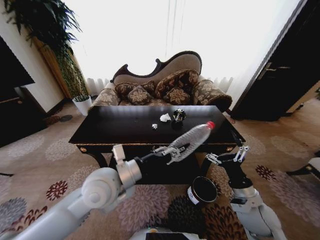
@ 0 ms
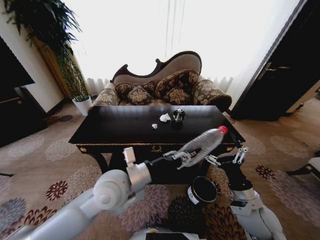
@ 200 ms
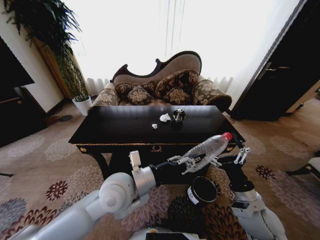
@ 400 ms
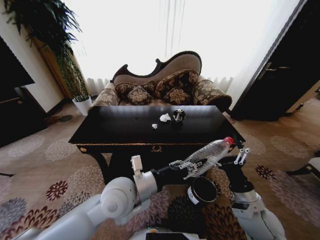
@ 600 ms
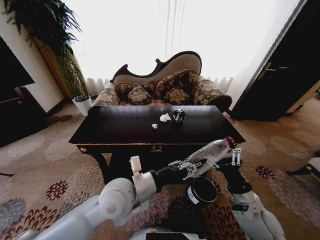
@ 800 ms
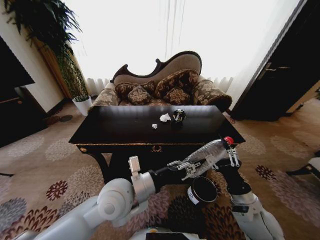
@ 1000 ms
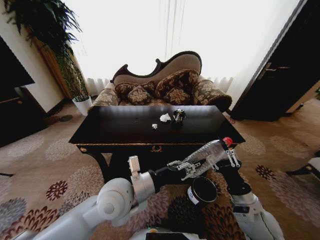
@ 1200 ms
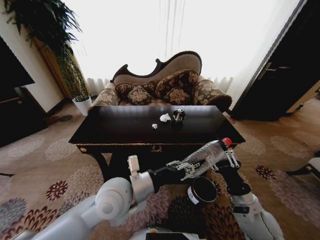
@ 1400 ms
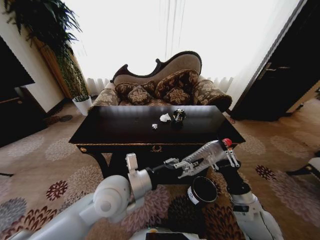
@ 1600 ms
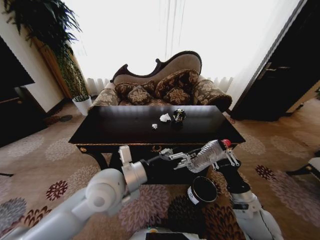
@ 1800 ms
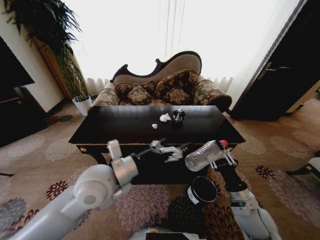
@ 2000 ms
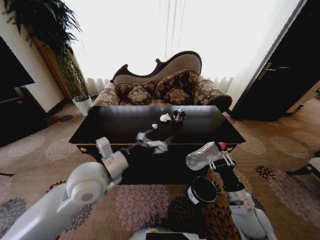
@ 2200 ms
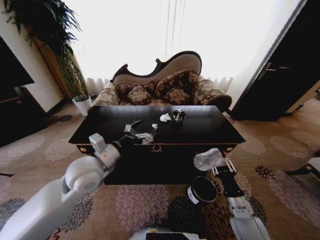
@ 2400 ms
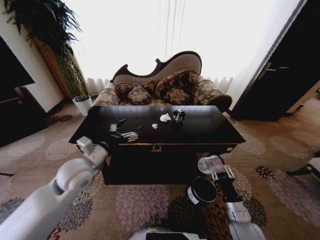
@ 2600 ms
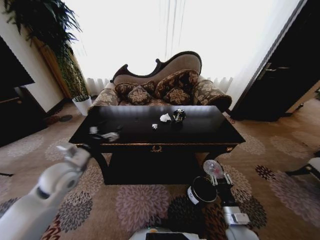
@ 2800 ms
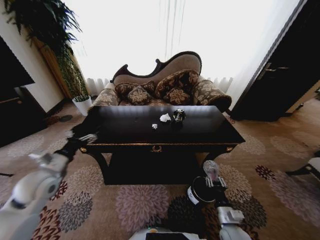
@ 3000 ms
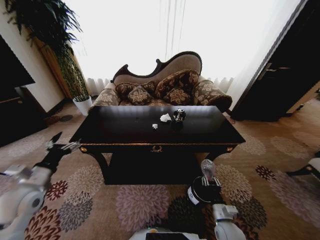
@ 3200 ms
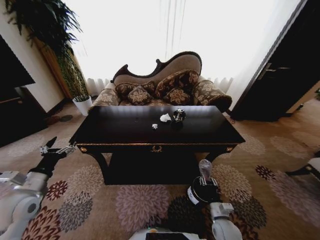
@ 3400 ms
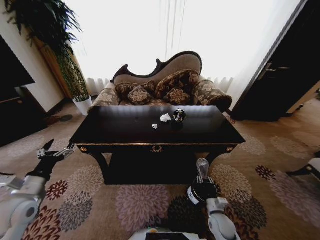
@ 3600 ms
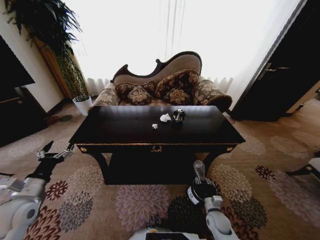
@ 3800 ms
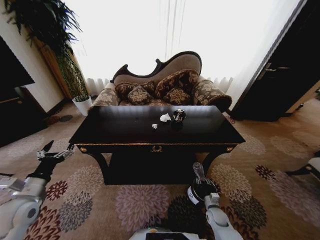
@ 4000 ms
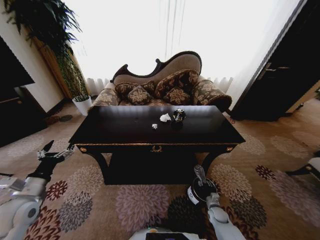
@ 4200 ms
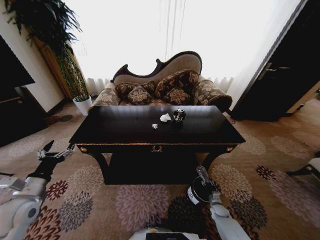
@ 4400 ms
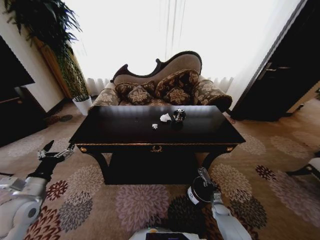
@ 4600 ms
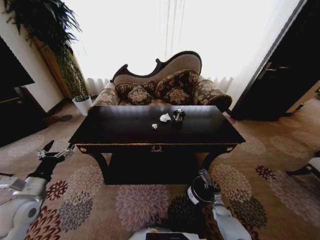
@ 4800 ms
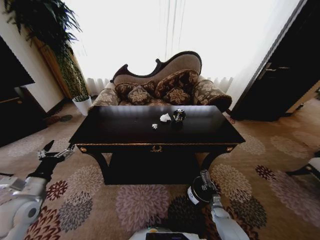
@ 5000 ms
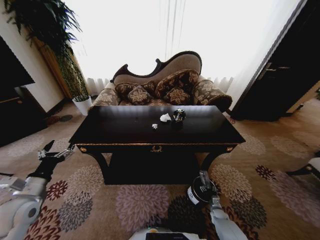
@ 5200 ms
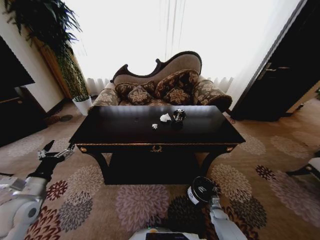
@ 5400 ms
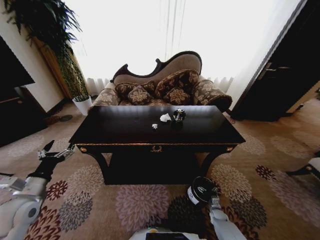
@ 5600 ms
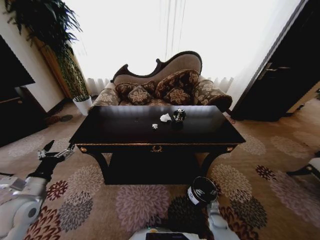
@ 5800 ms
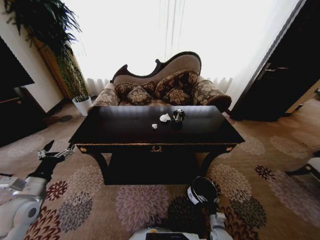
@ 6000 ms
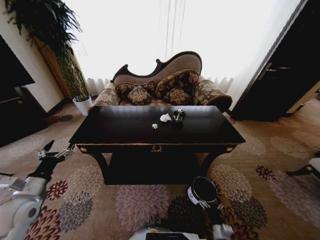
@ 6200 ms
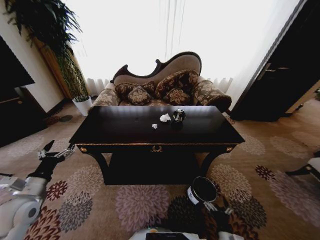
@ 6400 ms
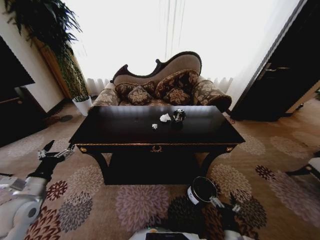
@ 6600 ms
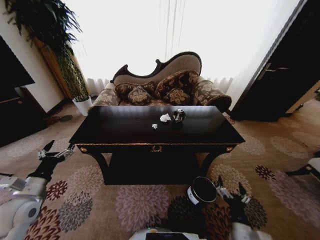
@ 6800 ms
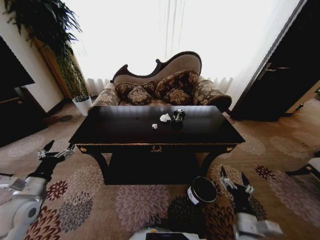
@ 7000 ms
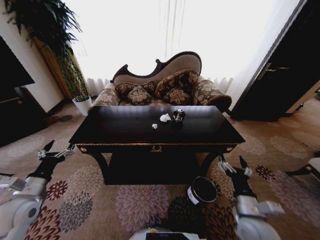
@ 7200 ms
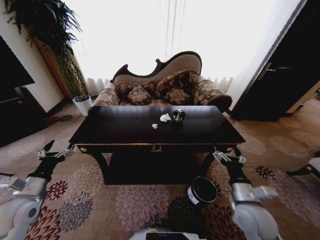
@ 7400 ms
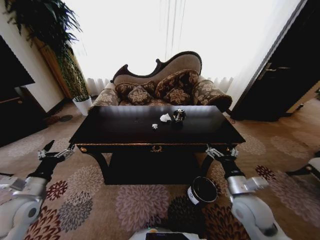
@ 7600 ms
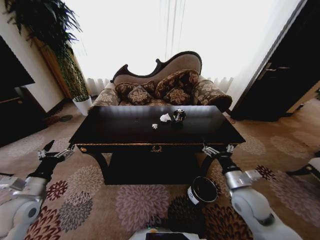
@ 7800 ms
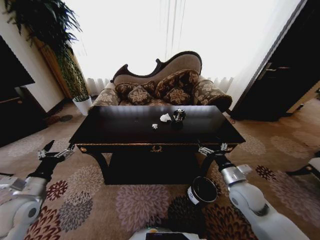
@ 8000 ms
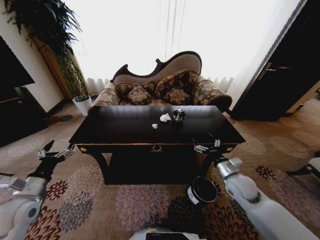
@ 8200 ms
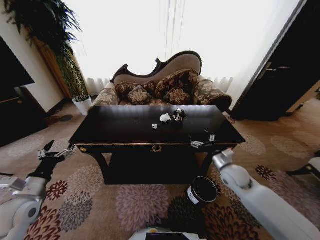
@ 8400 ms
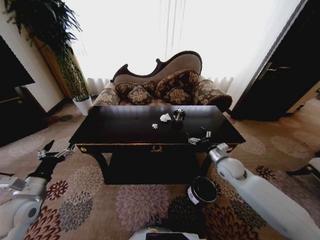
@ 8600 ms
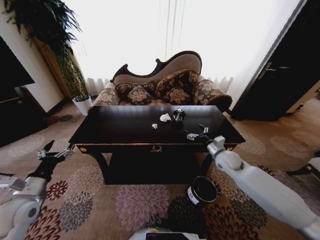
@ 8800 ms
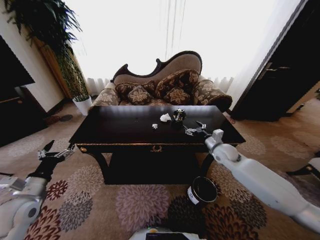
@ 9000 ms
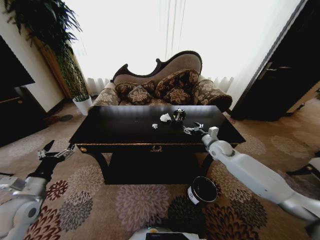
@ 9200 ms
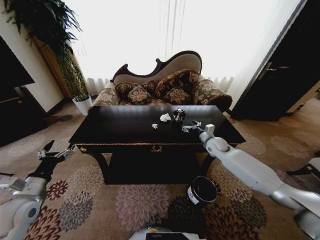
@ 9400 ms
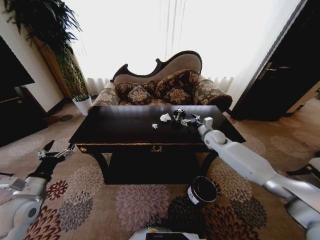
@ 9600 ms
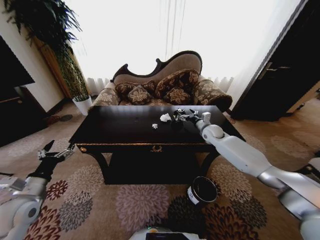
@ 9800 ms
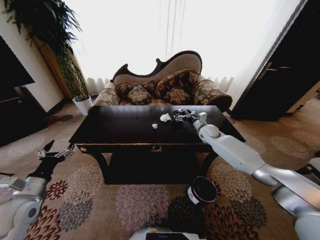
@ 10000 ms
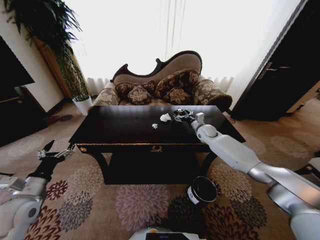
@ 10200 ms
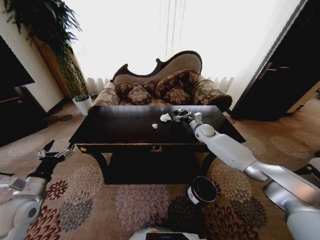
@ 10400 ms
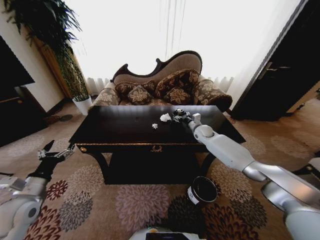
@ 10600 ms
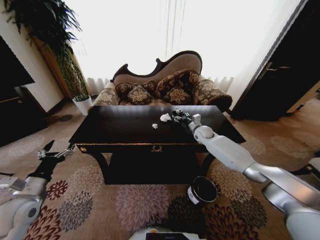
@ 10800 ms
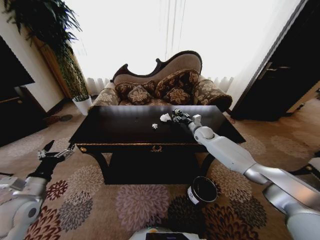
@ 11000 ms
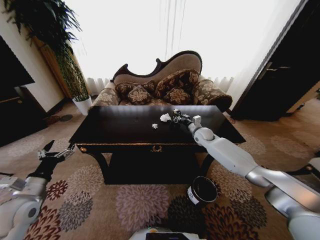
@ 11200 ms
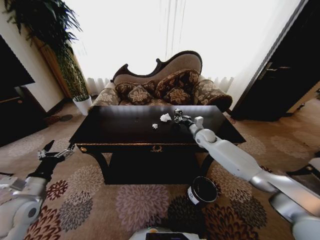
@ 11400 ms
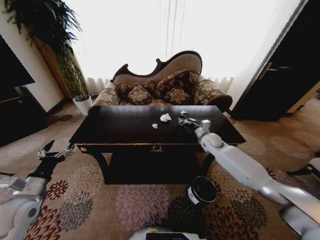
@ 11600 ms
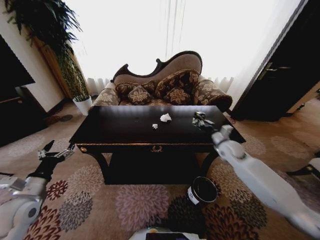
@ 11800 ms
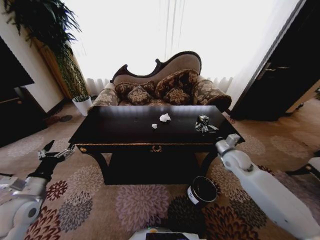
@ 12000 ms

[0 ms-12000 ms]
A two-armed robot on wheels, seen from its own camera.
Task of the whole recording: Move to the front of the table and place the trash on the table into the trash bin.
0 ms to 1600 ms: The right gripper closes up.
1600 ms to 3000 ms: The right gripper is displaced downward by about 15 cm. The left gripper moves to the left, about 25 cm, and opens up.
3000 ms to 4400 ms: The left gripper travels backward by approximately 5 cm, while the right gripper shifts approximately 25 cm downward, forward and to the right.
4400 ms to 6000 ms: The right gripper heads backward, covering some 10 cm, and opens.
6000 ms to 7600 ms: The right gripper heads upward, covering some 35 cm.
7600 ms to 9000 ms: The right gripper goes about 25 cm forward.
9000 ms to 10400 ms: The right gripper is displaced forward by about 15 cm.
10400 ms to 12000 ms: The right gripper heads backward, covering some 20 cm, and closes up.

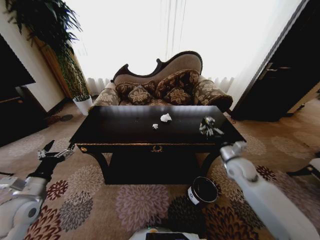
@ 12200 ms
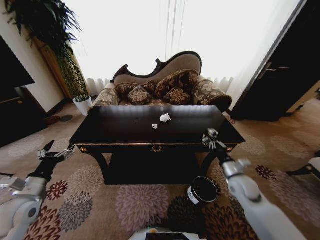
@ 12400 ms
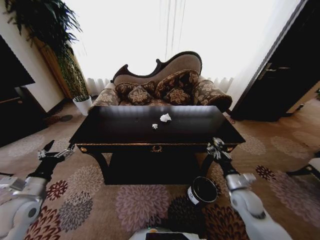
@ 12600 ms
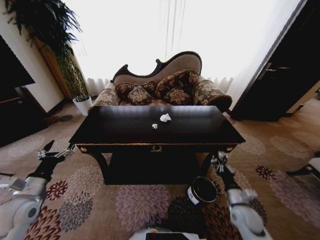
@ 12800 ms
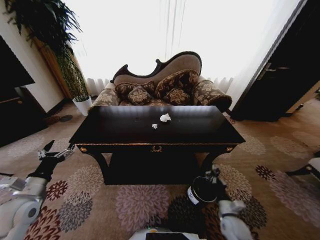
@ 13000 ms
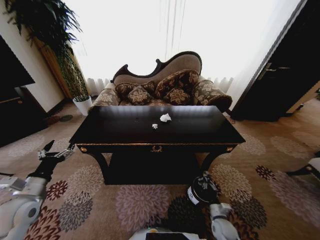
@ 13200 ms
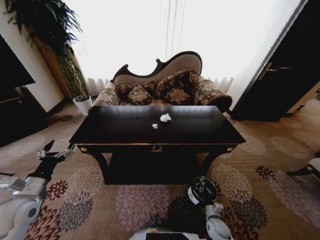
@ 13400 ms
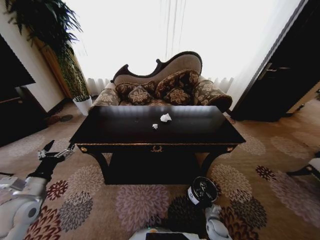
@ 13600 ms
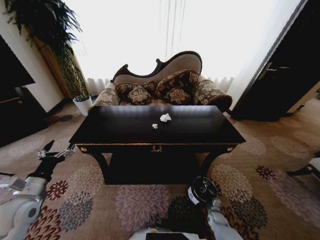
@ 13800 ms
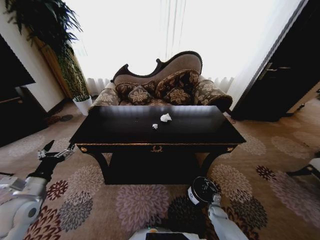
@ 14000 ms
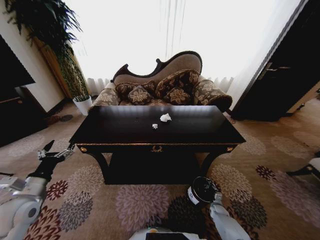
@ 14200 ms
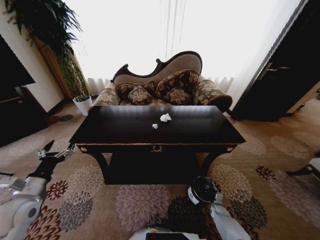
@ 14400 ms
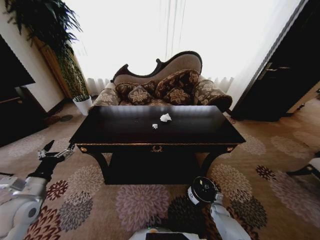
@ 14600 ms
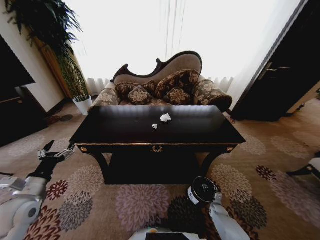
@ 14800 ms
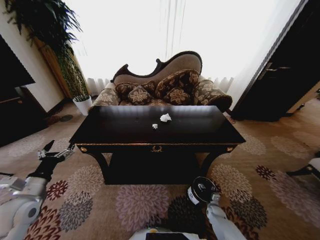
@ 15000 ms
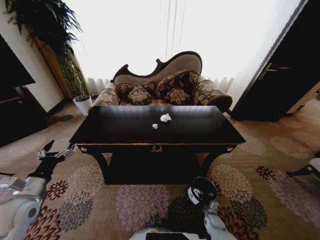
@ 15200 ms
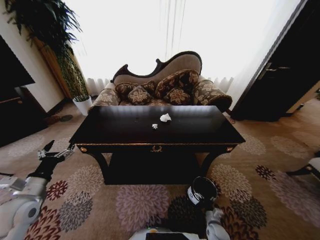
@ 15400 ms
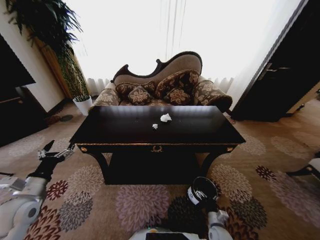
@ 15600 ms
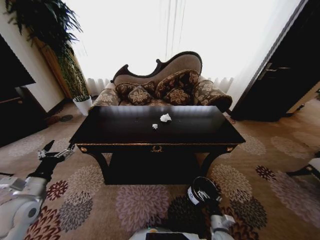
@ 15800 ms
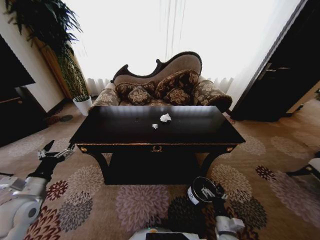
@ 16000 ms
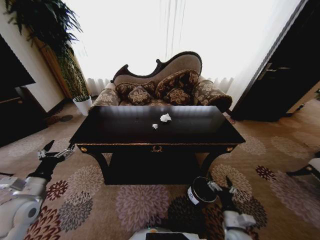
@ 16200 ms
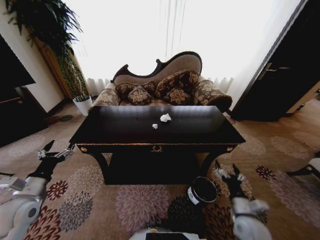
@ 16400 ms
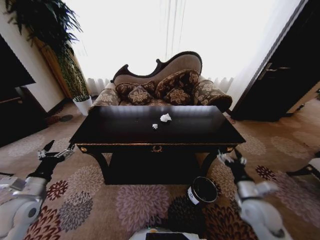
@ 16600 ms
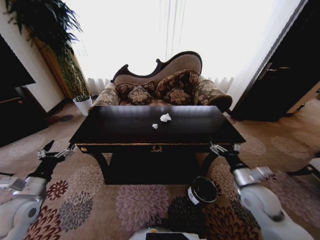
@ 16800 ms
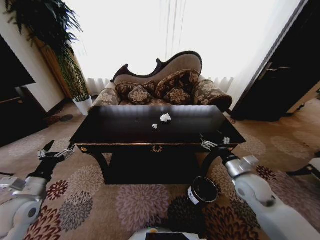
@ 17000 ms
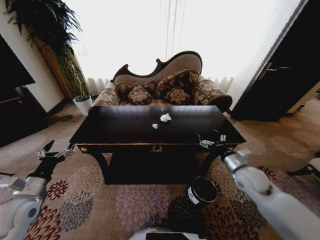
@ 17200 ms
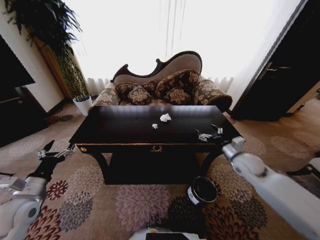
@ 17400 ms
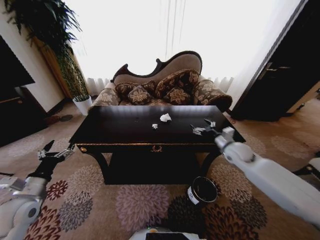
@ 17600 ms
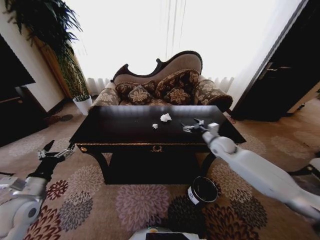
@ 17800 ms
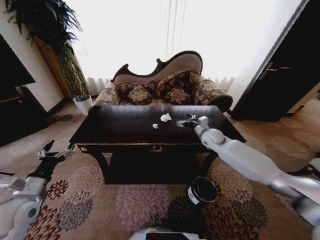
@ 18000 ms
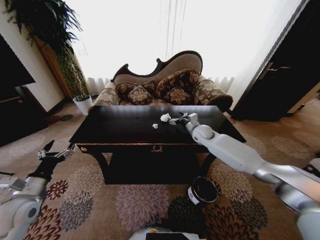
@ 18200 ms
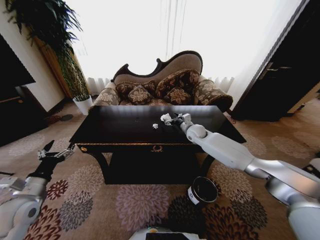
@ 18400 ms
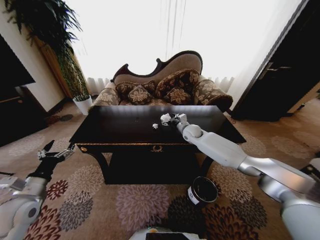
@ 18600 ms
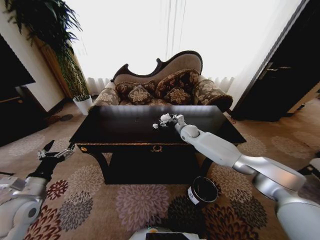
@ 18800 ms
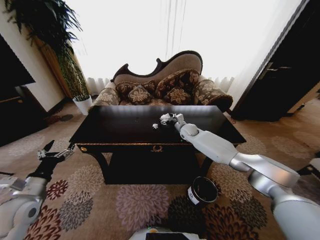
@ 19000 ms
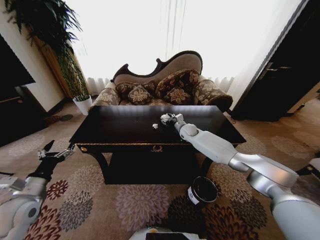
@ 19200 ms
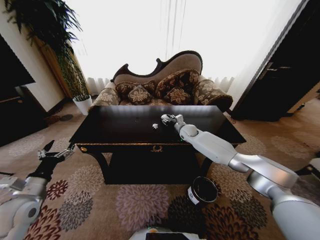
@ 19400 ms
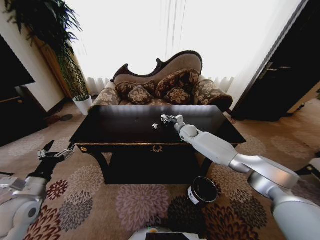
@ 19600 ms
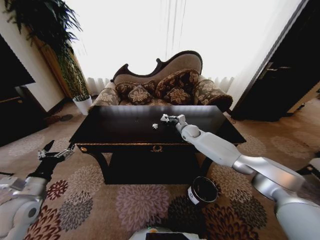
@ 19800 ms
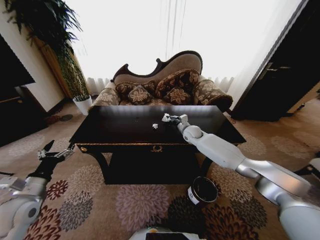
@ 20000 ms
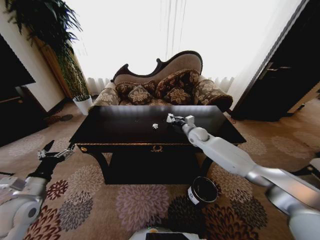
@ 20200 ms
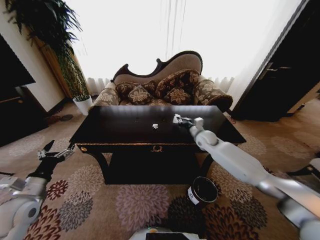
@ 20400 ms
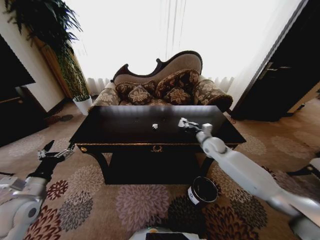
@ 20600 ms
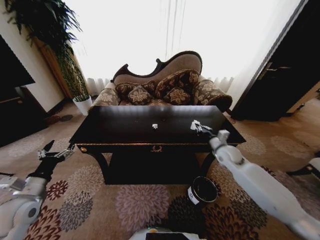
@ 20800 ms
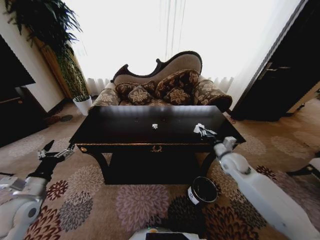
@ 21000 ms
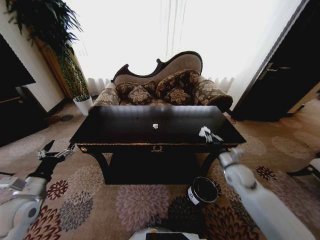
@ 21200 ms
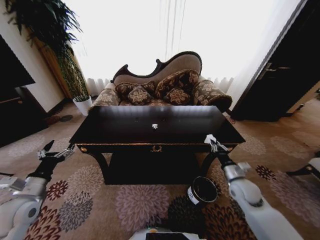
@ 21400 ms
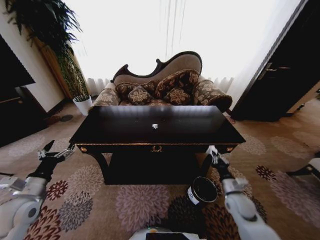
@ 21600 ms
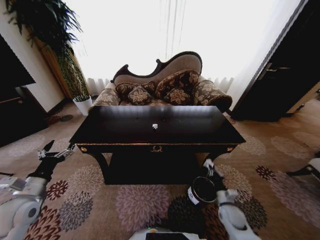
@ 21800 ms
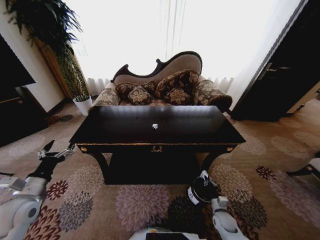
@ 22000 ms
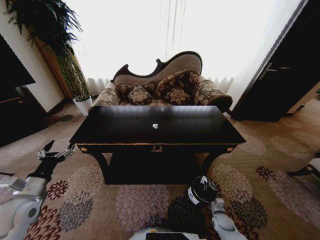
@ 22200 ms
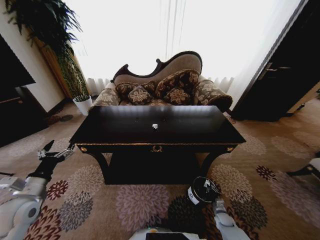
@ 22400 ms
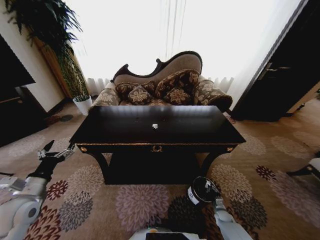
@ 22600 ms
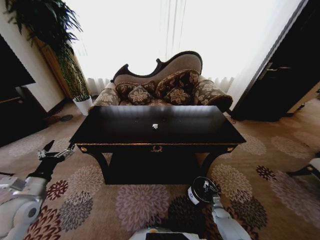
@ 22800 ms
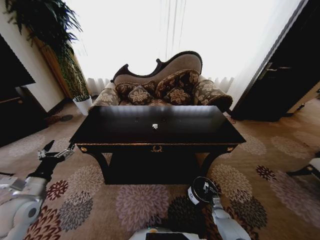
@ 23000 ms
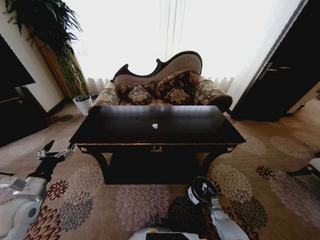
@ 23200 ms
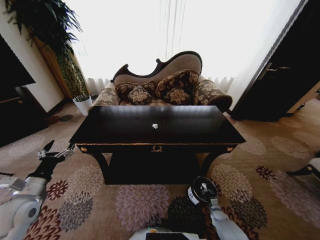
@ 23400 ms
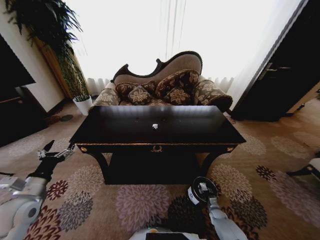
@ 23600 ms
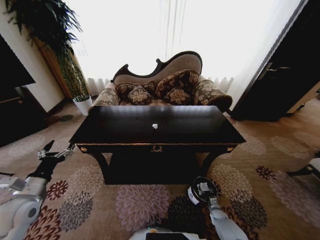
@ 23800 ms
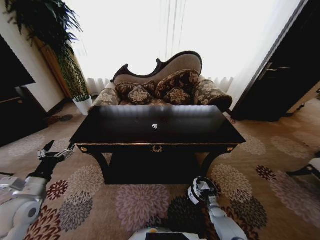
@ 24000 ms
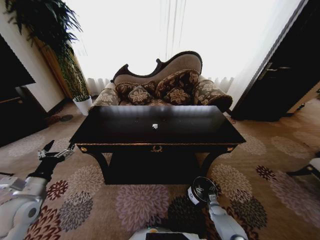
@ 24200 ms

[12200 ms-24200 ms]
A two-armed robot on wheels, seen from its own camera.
Task of the whole recording: Move to the front of the table and place the trash on the table into the trash bin.
12200 ms to 13800 ms: The right gripper is displaced downward by roughly 40 cm.
13800 ms to 15200 ms: The right gripper opens its fingers.
15200 ms to 16600 ms: The right gripper travels upward by about 35 cm.
16600 ms to 18200 ms: The right gripper shifts approximately 35 cm forward.
18200 ms to 19800 ms: The right gripper ends up about 5 cm from where it was, and closes its fingers.
19800 ms to 21200 ms: The right gripper travels backward and to the right by about 30 cm.
21200 ms to 22600 ms: The right gripper moves downward, approximately 35 cm.
22600 ms to 24200 ms: The right gripper opens its fingers.
